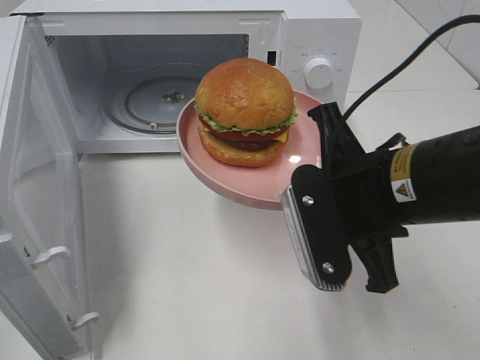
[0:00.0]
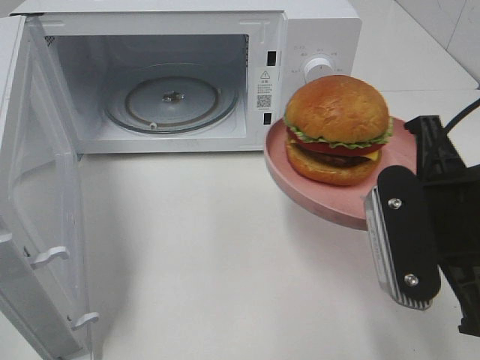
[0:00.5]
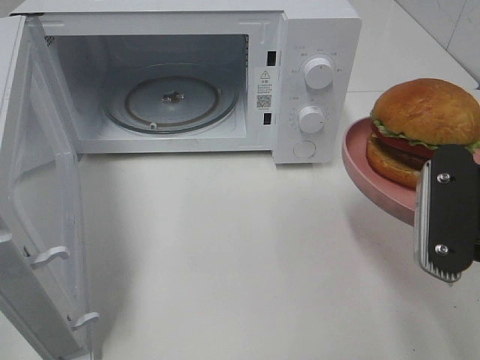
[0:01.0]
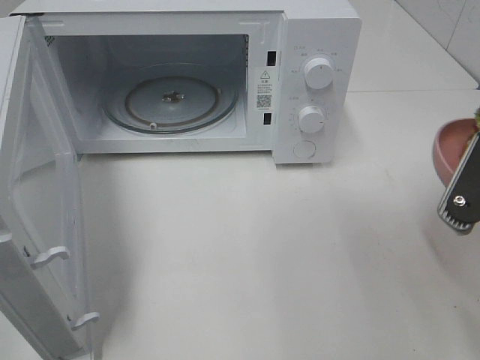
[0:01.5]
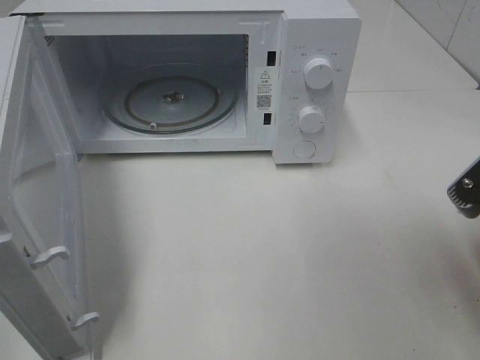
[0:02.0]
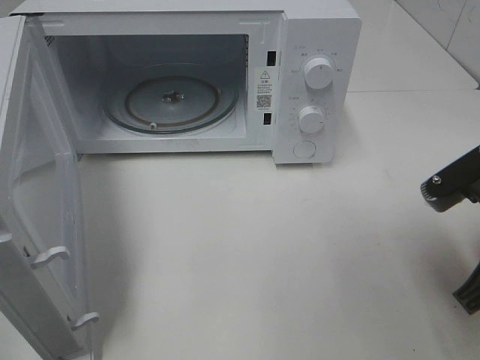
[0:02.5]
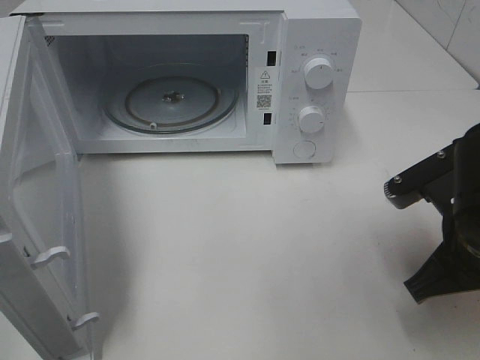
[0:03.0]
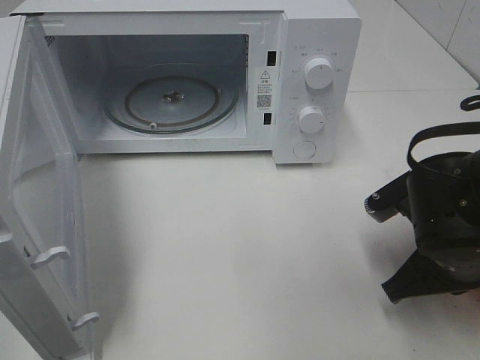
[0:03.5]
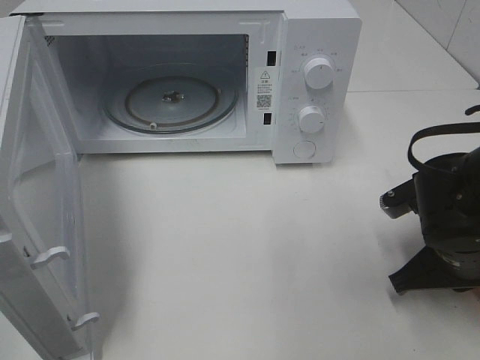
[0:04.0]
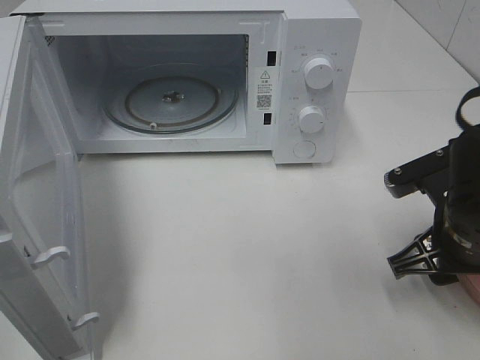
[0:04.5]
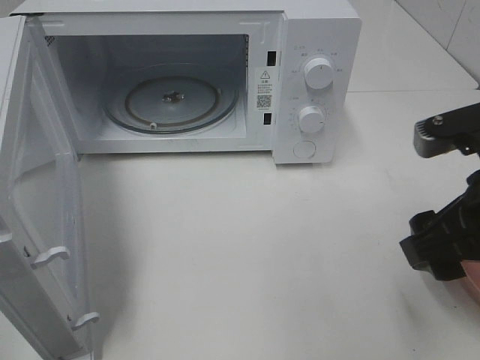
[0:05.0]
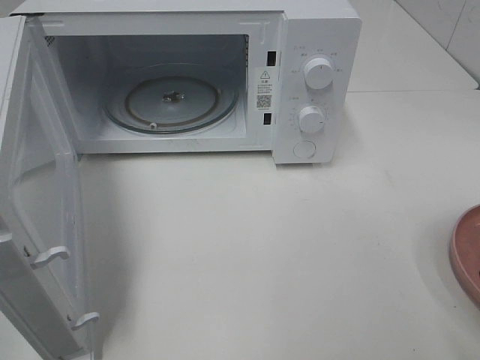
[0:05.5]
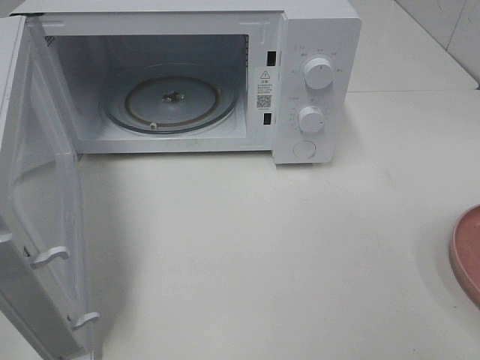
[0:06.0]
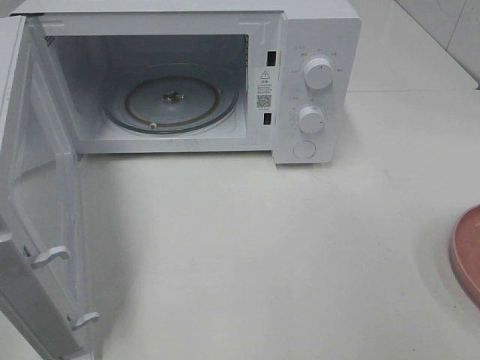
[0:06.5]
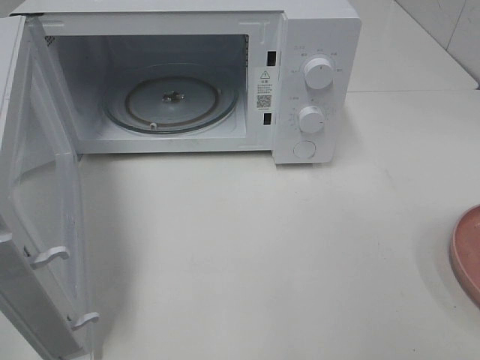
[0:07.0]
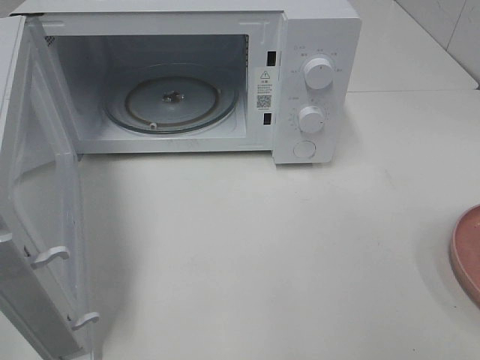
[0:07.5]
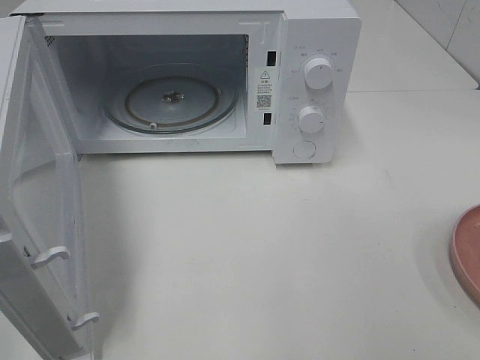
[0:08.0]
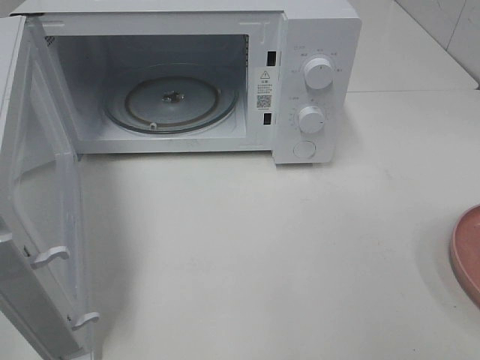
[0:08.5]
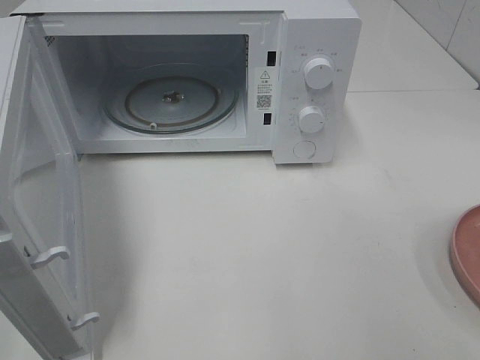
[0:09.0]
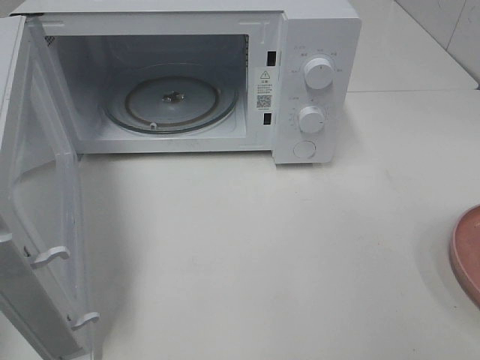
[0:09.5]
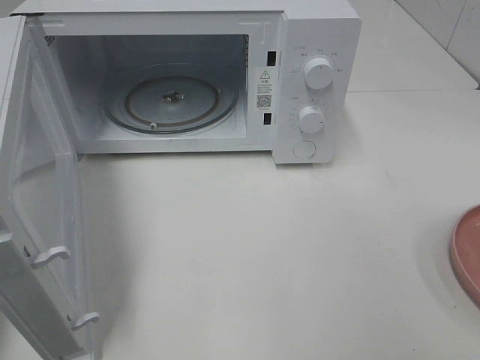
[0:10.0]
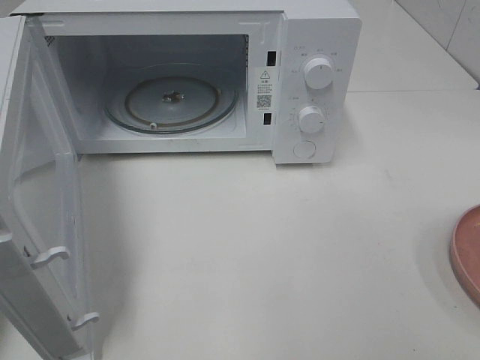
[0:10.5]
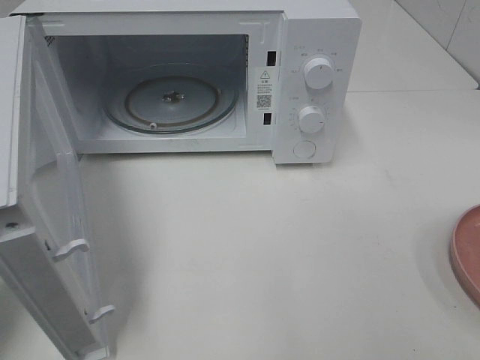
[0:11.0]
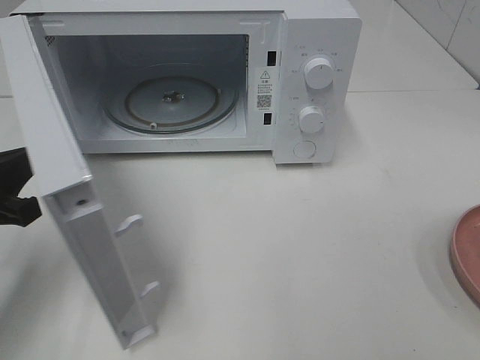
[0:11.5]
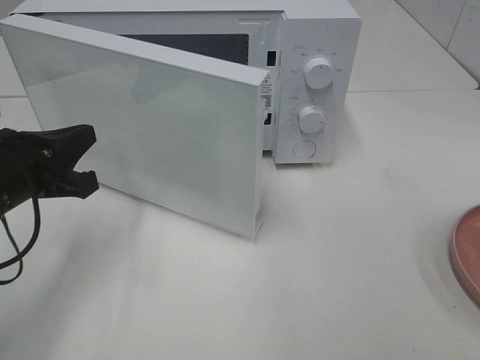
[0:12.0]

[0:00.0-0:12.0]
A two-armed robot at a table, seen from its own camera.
Task of the whole recording: Heat the burger.
Step, 0:00.0 to 0:04.0: Right hand: place the plate on the table.
0:00.0 to 0:02.0: The right gripper moves to the right, some 10 cm.
0:02.0 to 0:04.0: The right gripper goes some 15 cm downward and forward.
0:04.0 to 0:06.0: The right gripper travels upward and backward by some 25 cm, and opens.
0:10.0 to 0:12.0: The left gripper travels forward, downward and to the right by approximately 20 cm.

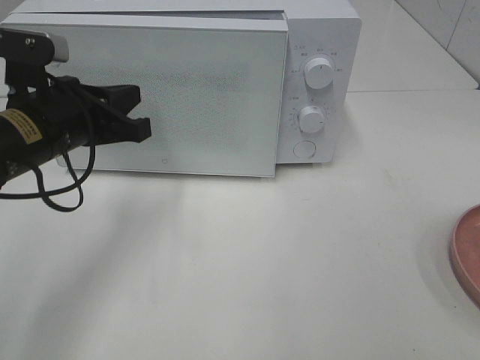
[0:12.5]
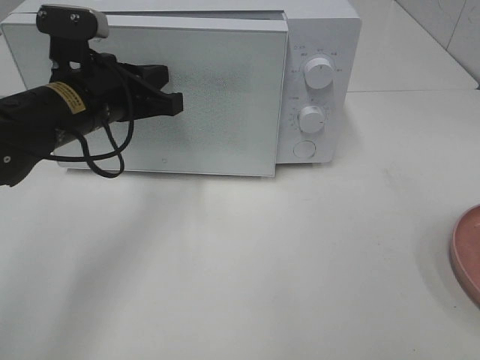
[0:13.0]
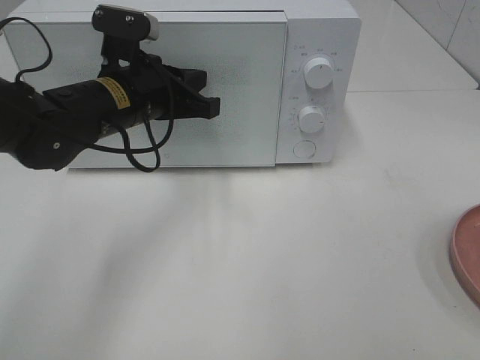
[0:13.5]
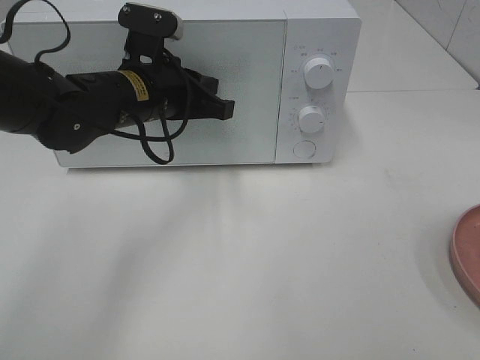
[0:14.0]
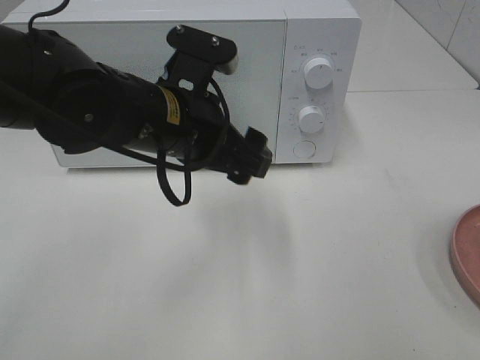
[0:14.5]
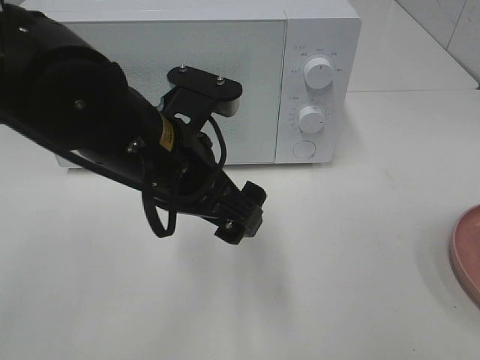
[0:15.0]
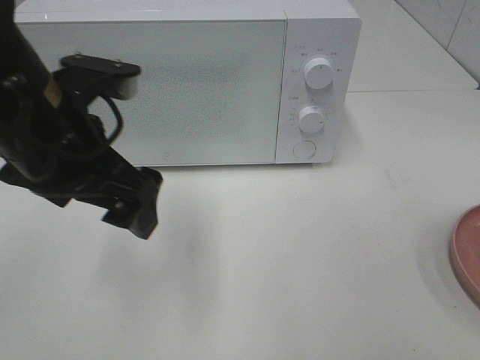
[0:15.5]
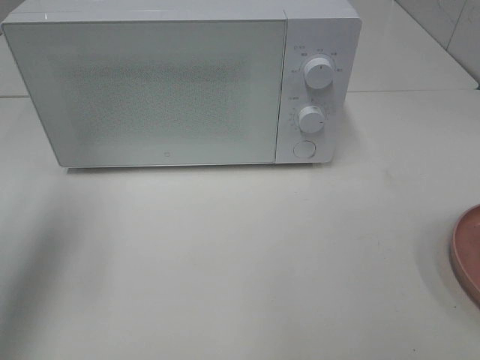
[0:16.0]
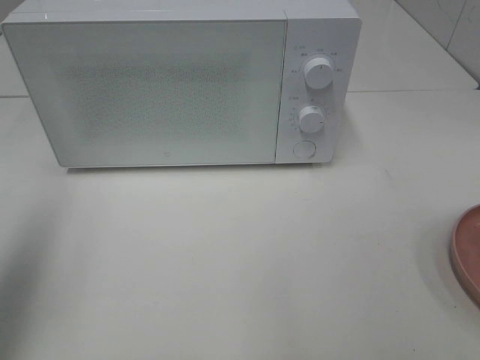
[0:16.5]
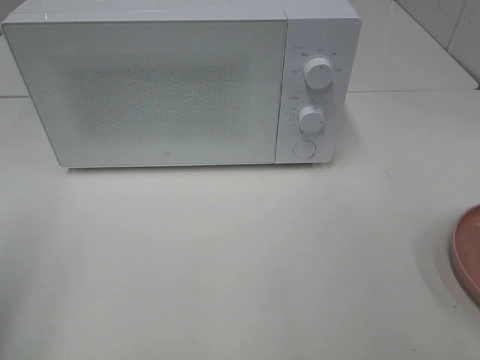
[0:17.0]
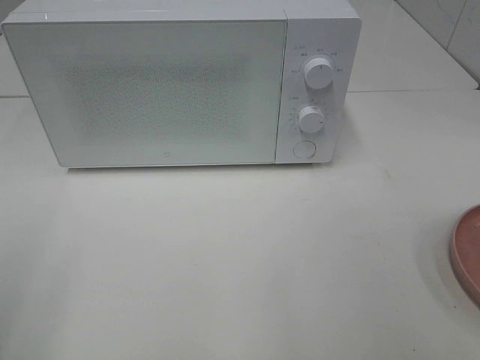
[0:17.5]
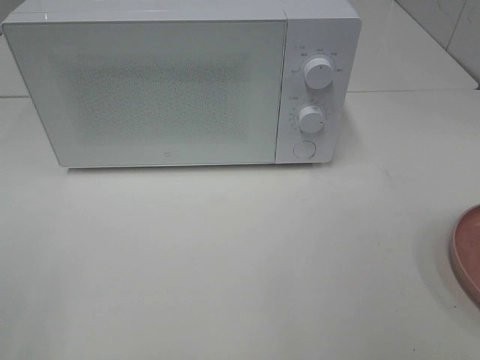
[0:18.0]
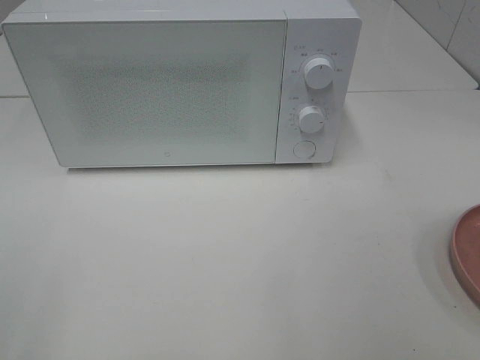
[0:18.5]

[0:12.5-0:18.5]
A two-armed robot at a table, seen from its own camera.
Task of the whole recording: Heat the burger.
0:12.5 to 0:14.5: The left gripper moves to the right, roughly 10 cm, and opens.
0:14.5 to 0:16.5: The left gripper travels to the left and upward by about 30 cm.
0:16.5 to 0:18.5: The left gripper heads backward, covering about 20 cm.

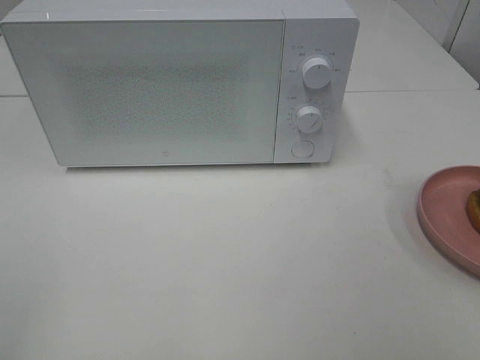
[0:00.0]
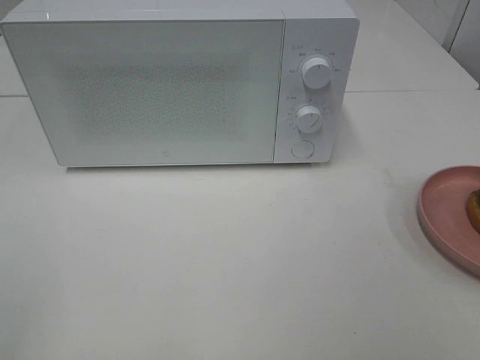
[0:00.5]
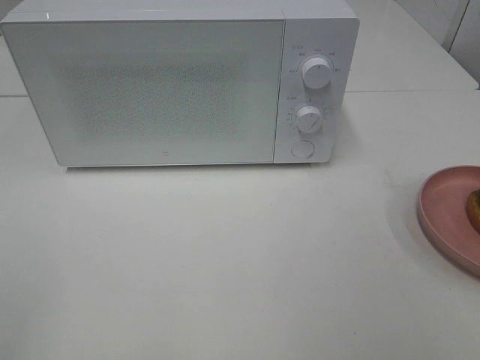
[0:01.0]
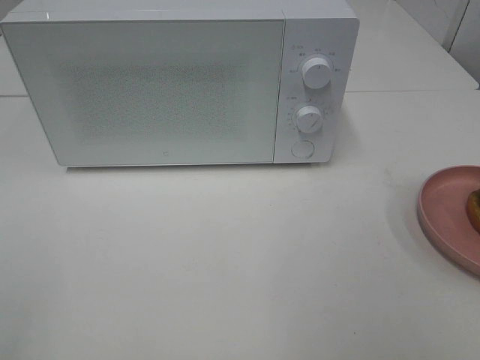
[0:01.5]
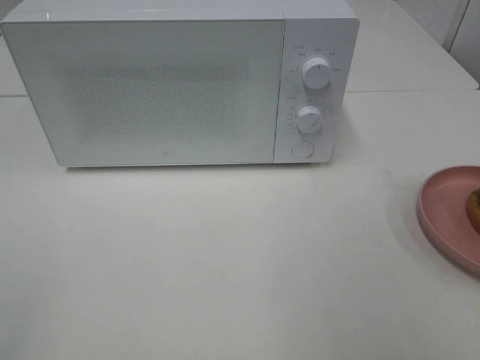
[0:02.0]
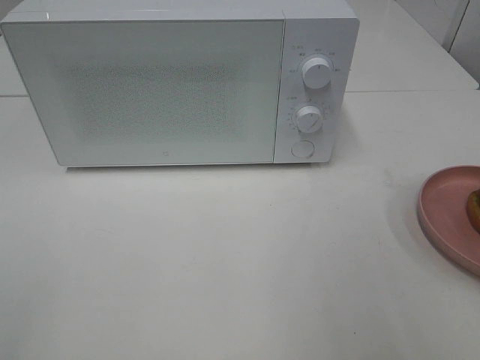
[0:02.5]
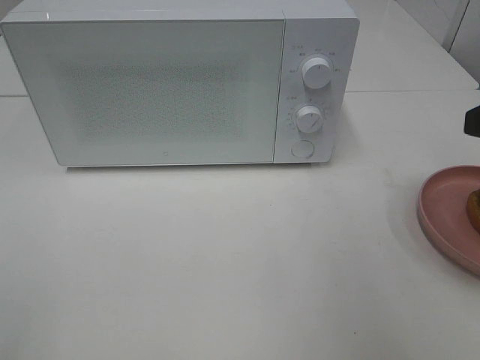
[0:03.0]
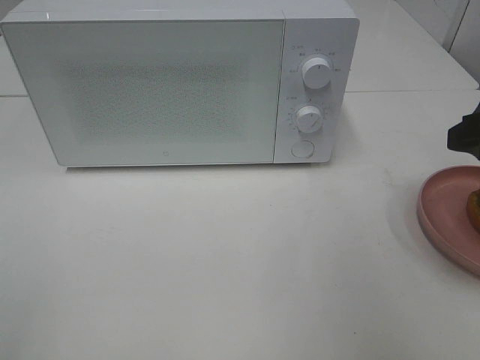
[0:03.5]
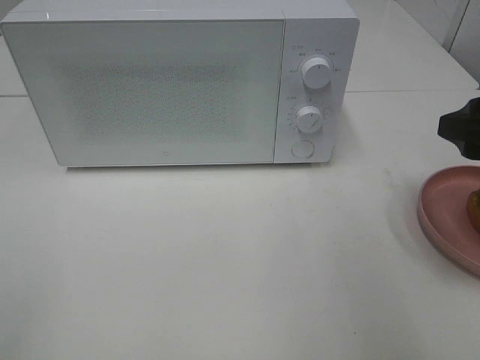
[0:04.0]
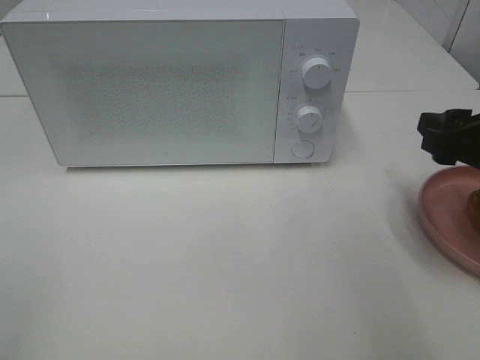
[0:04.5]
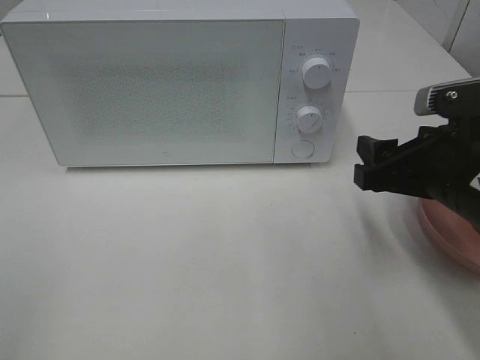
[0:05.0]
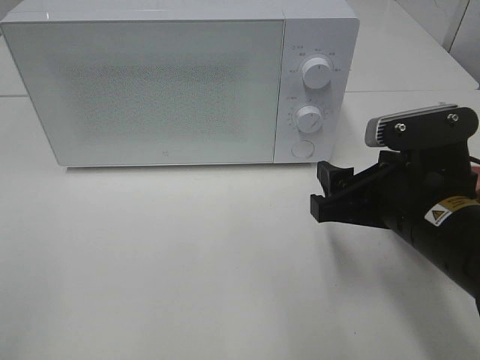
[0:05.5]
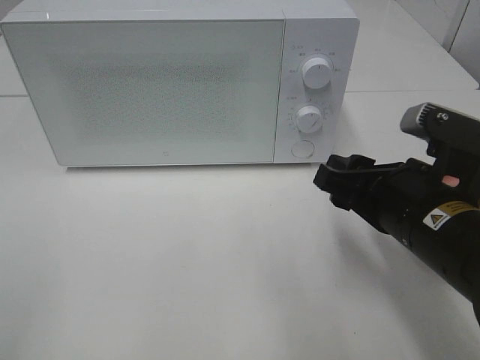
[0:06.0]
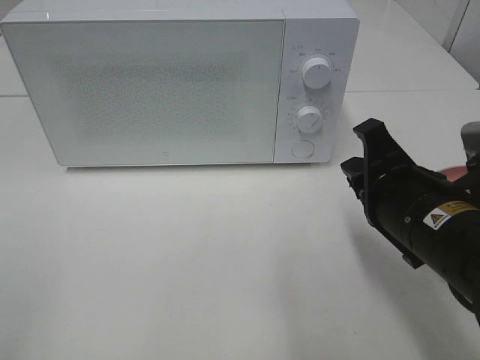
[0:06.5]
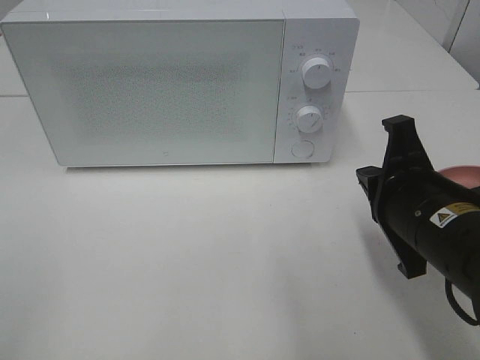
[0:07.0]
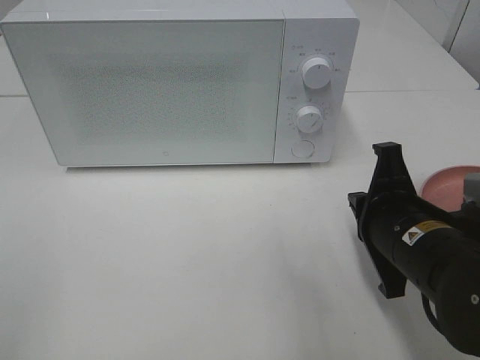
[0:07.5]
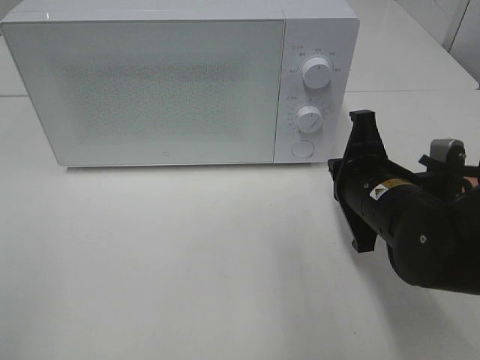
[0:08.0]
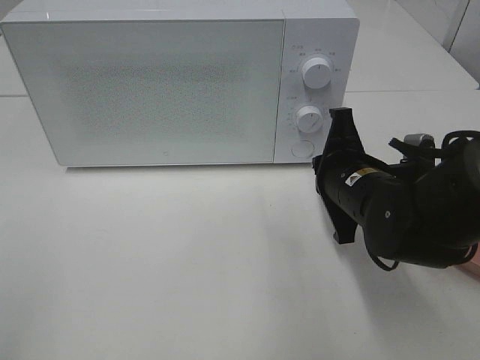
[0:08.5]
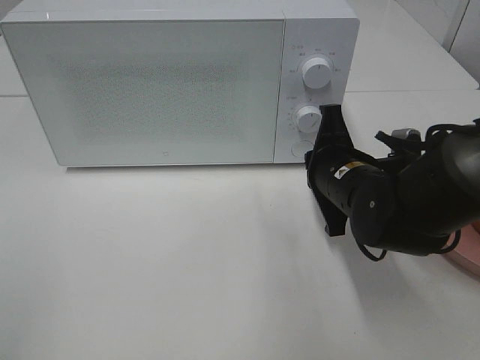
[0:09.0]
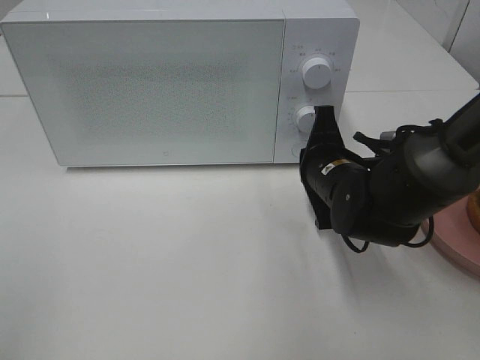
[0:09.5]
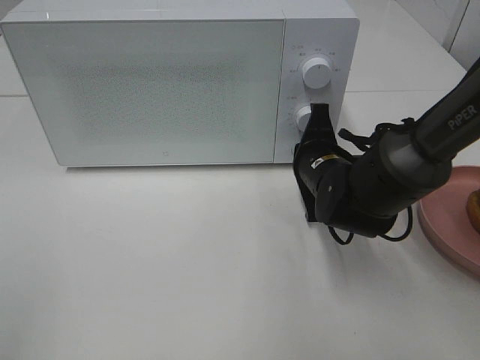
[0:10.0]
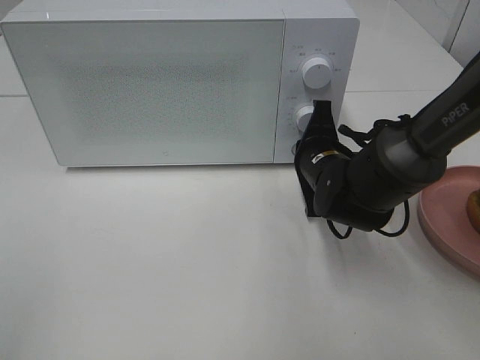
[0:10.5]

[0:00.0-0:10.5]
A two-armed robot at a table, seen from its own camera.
Task of the whole recording: Heat the burger.
0:02.0 to 0:04.0: The right gripper moves forward and downward, about 15 cm.
0:04.0 to 0:06.5: The right gripper travels to the left and downward by about 15 cm, and closes its fingers.
0:06.5 to 0:08.5: The right gripper travels forward by about 10 cm.
0:08.5 to 0:10.5: The right gripper travels forward by approximately 5 cm.
